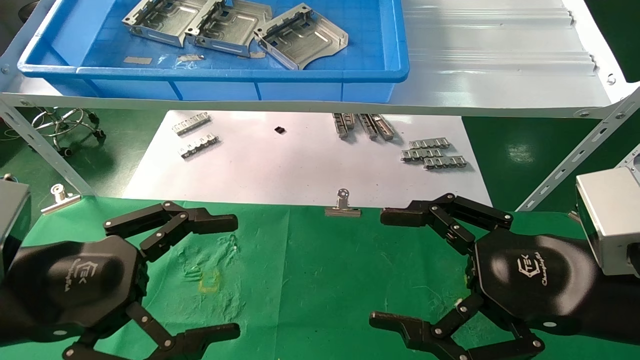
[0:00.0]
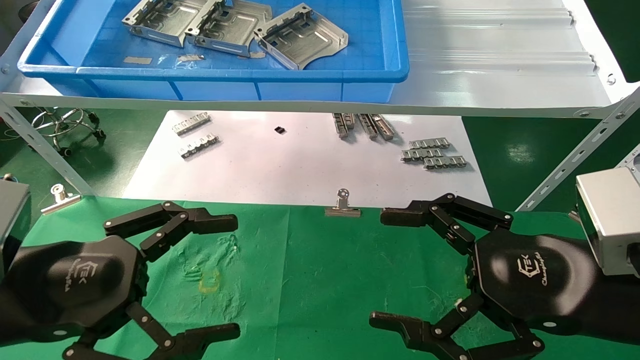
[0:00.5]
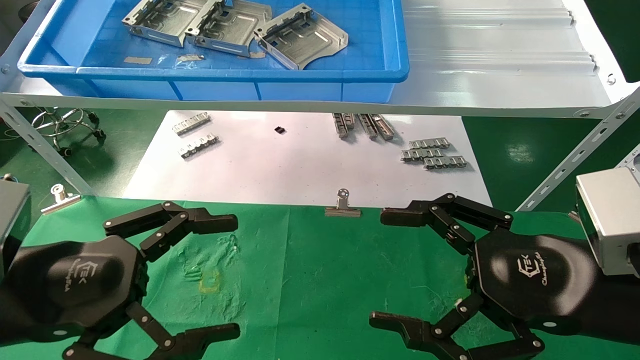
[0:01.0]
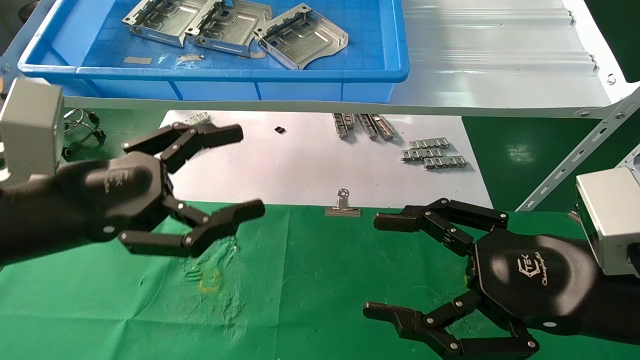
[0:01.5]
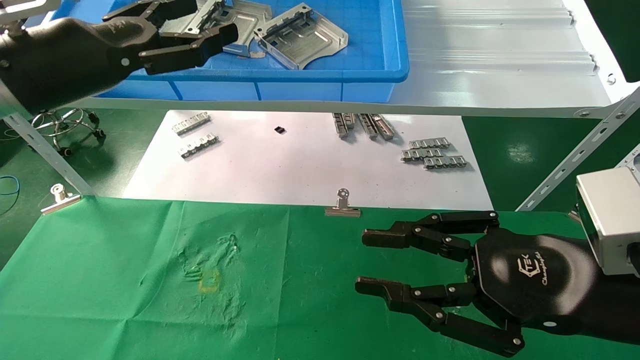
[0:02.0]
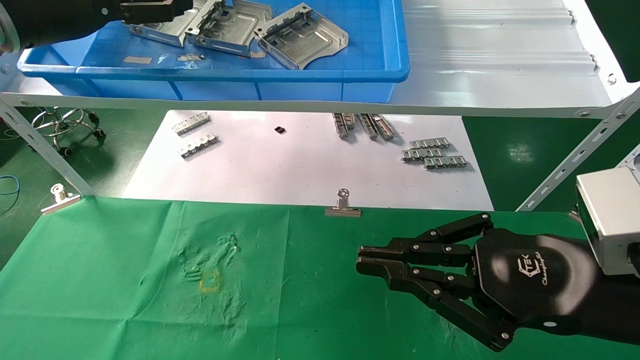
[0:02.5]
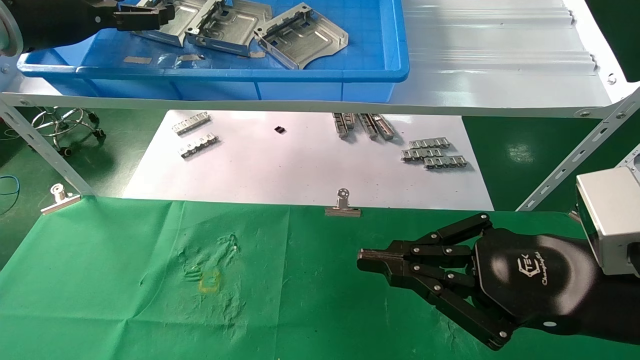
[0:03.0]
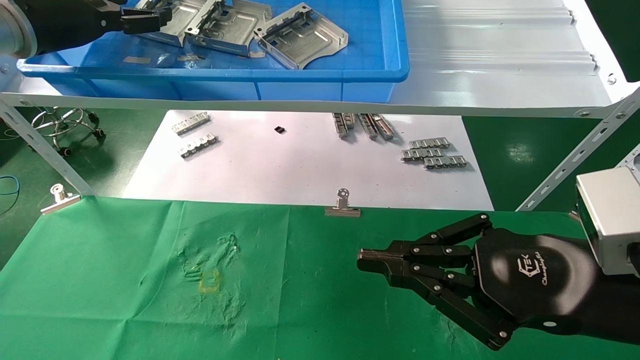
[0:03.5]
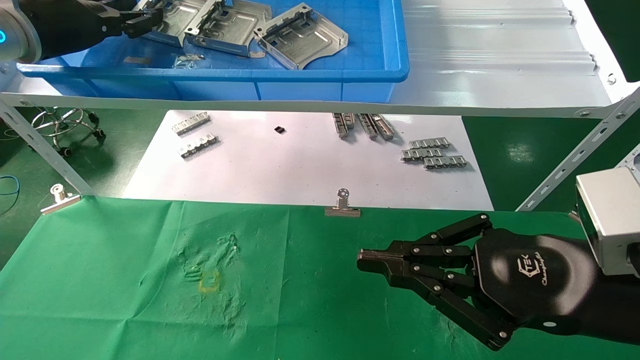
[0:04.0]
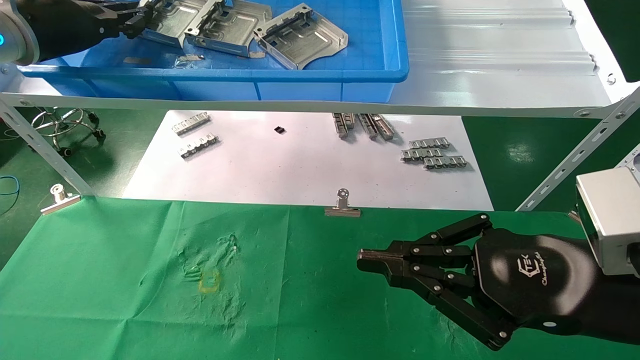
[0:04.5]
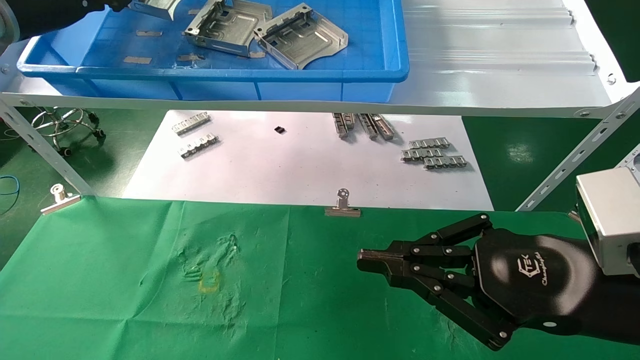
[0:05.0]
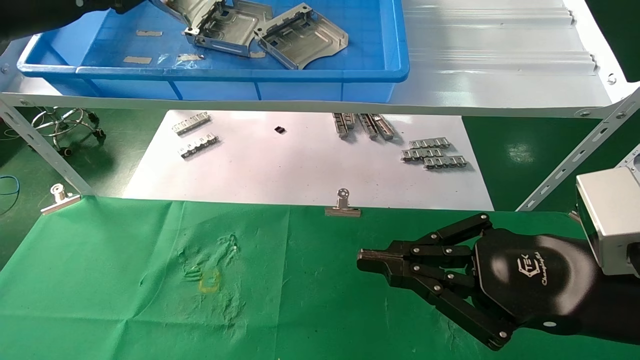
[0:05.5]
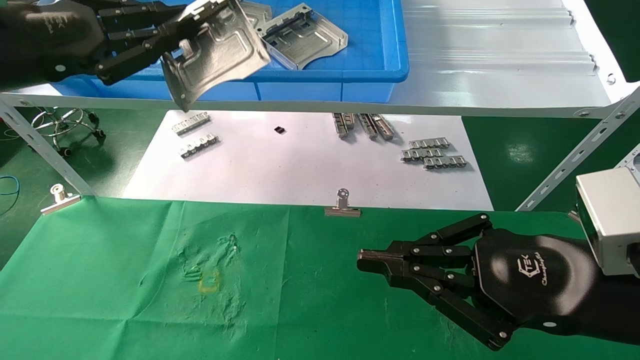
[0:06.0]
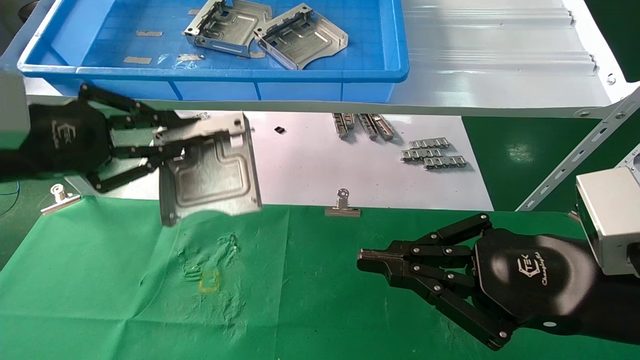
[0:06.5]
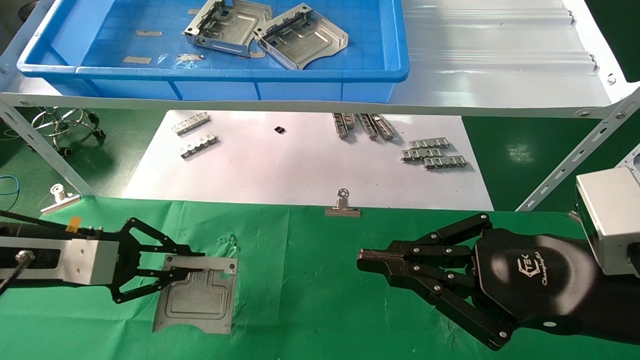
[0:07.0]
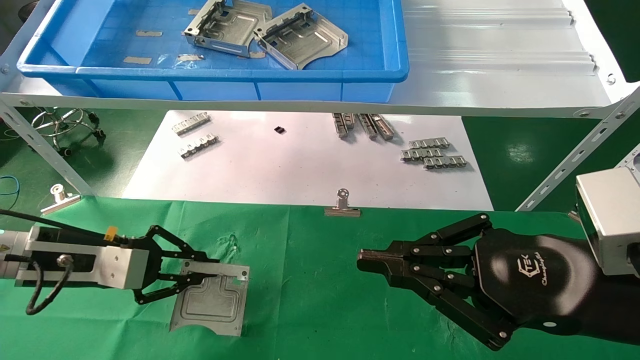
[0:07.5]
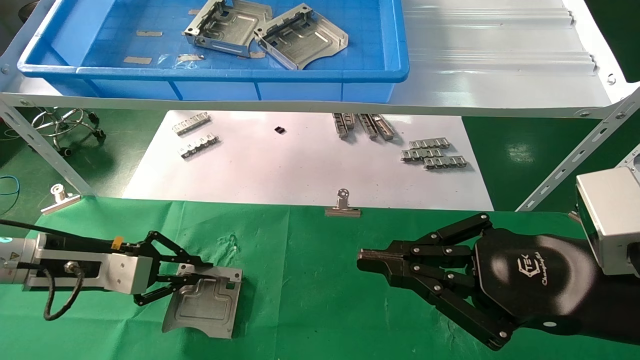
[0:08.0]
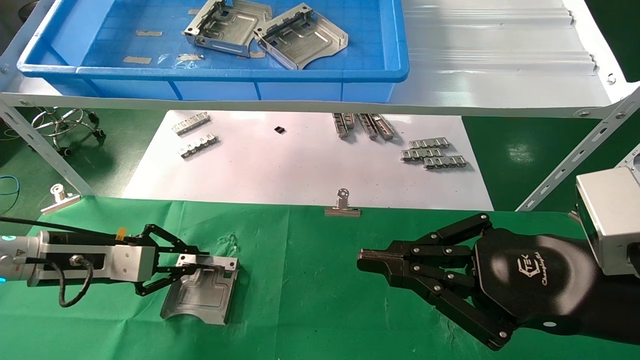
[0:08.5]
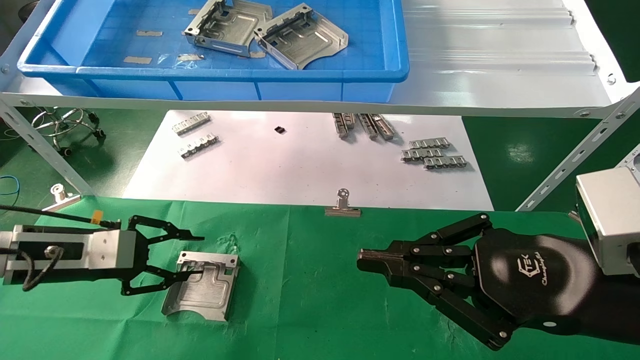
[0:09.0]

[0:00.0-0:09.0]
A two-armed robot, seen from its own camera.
Task of the whole recording: use the mechanical arm to pick up the parts and place them on the table.
Step, 0:01.5 to 0:04.0: Pick up the hard drive bracket from the feeding area.
Step, 0:04.5 to 0:08.5: Place the hard drive bracket into the box.
0:00.0 to 0:02.0: The right gripper closes; the left gripper is displaced upward and forward by about 20 cm.
0:02.0 to 0:04.5: The right gripper closes its fingers, while the left gripper is displaced forward, to the left and upward by roughly 15 cm, and closes.
0:04.5 to 0:07.0: The left gripper shifts roughly 25 cm downward and backward.

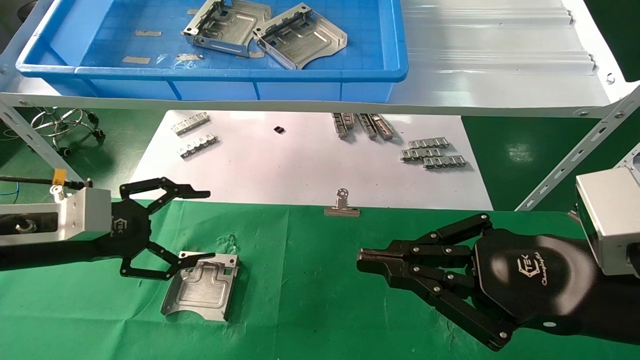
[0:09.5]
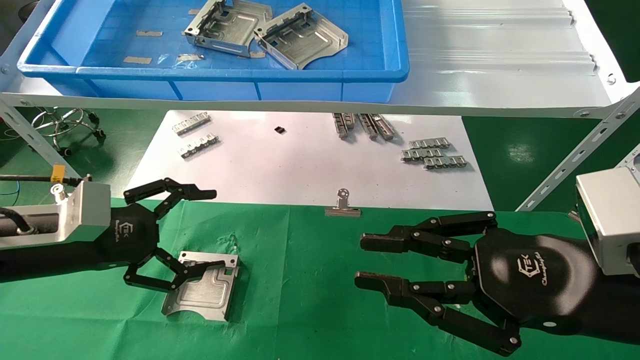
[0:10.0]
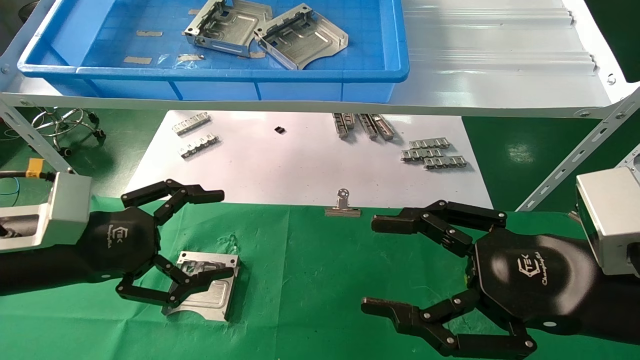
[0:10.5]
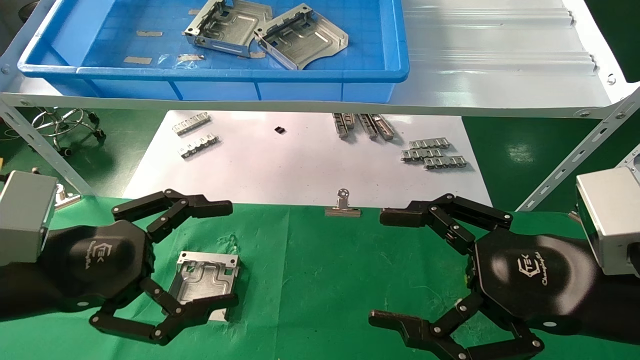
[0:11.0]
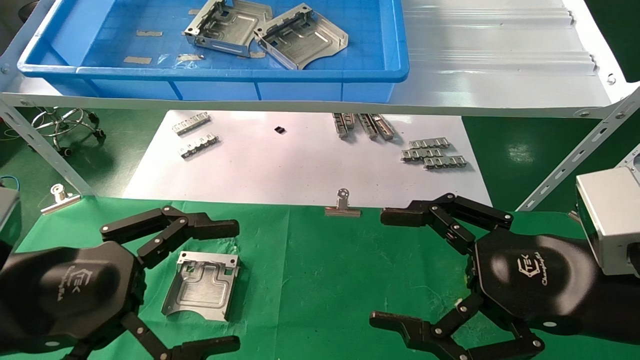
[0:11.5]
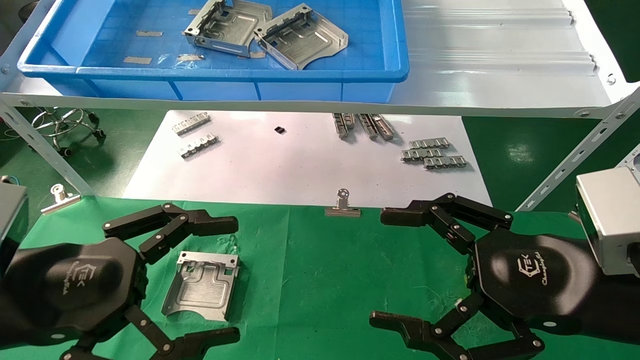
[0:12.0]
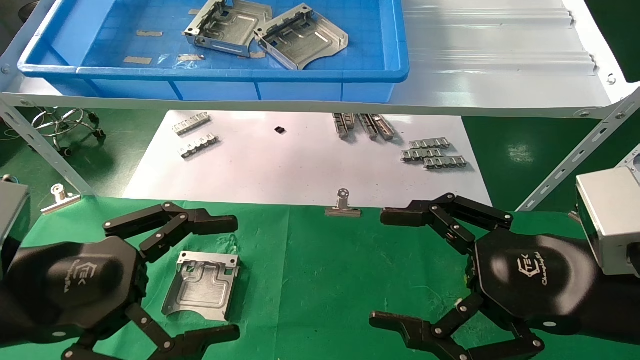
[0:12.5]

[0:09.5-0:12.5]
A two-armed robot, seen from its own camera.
Task of the whole recording: use the mechanical arm to pick up the parts and place them on the table.
0:09.5 to 0:11.0: The left gripper goes approximately 10 cm backward and to the right, while the right gripper opens.
0:11.0 to 0:12.5: There are only small adjustments of the grippers.

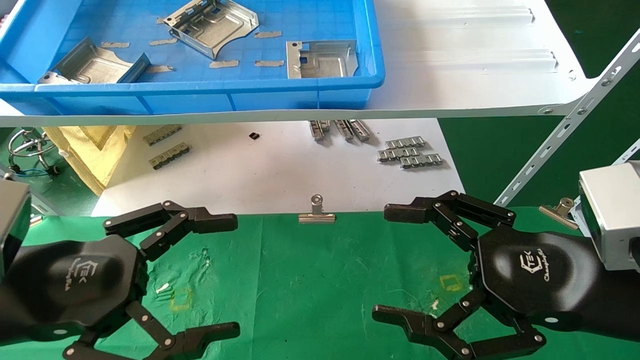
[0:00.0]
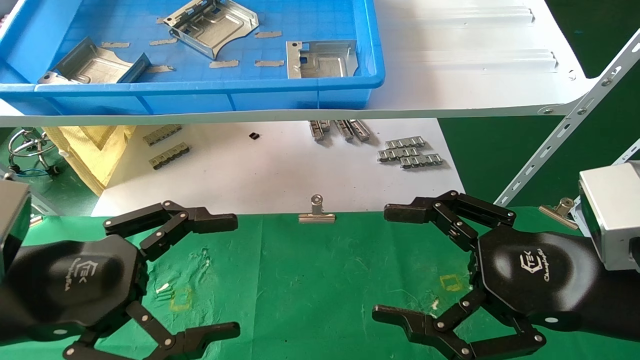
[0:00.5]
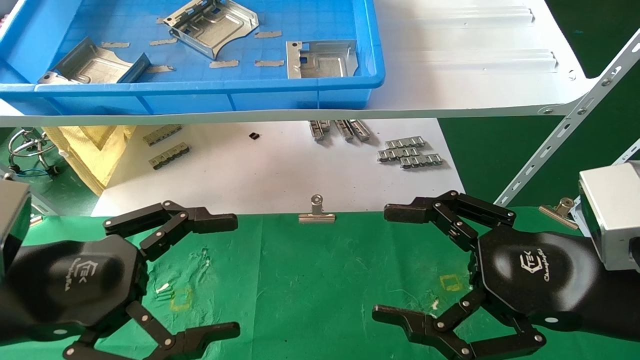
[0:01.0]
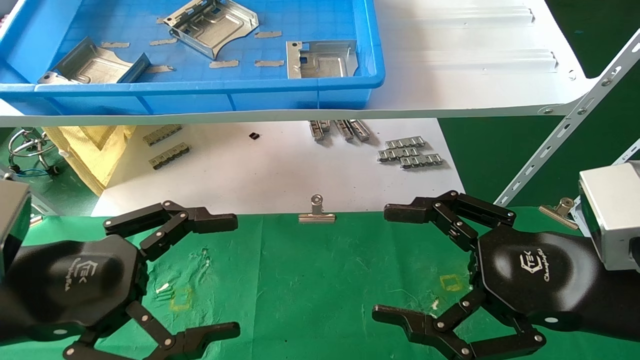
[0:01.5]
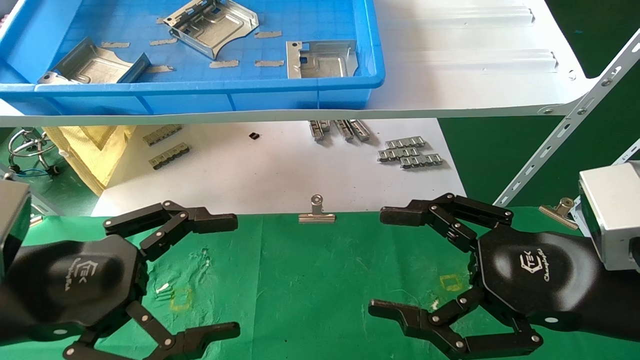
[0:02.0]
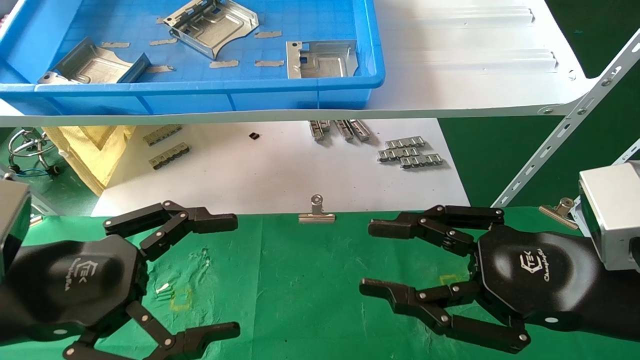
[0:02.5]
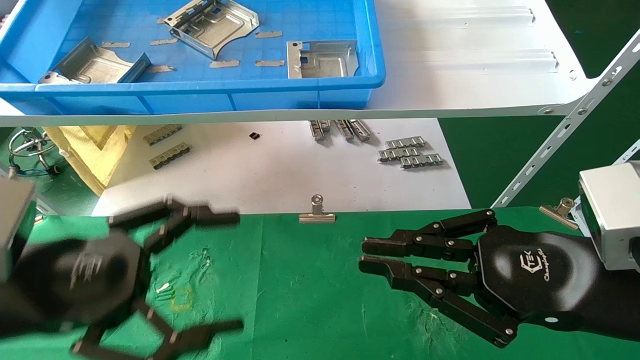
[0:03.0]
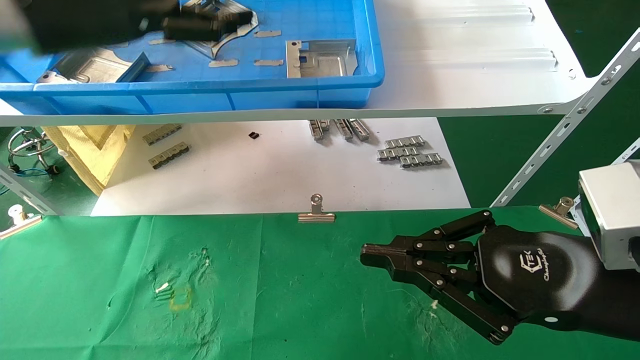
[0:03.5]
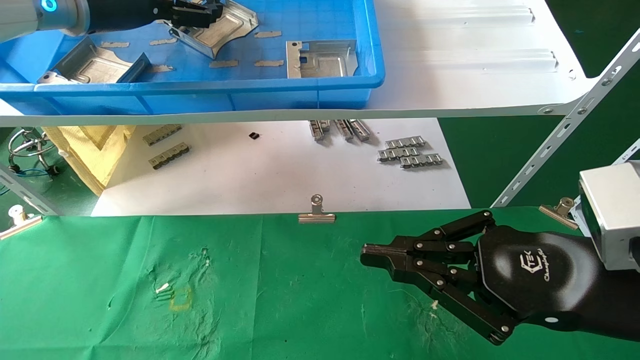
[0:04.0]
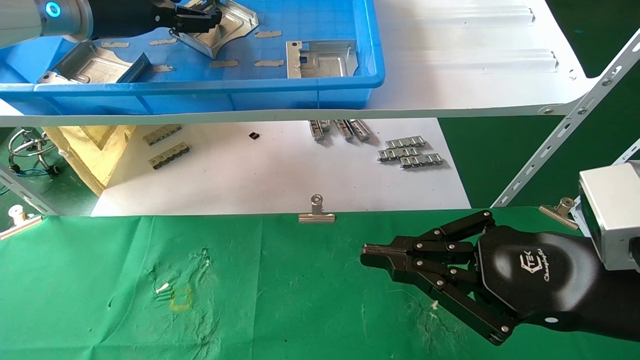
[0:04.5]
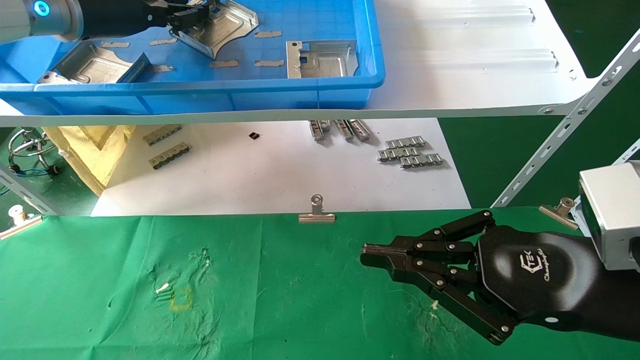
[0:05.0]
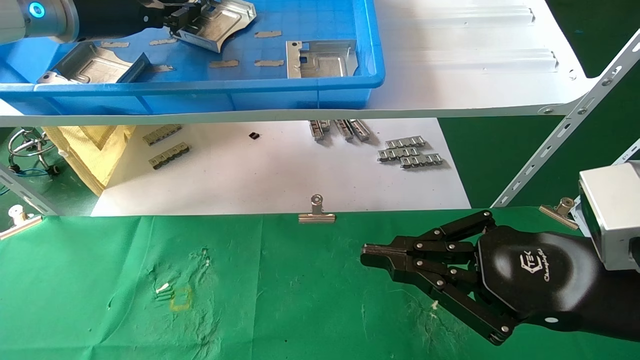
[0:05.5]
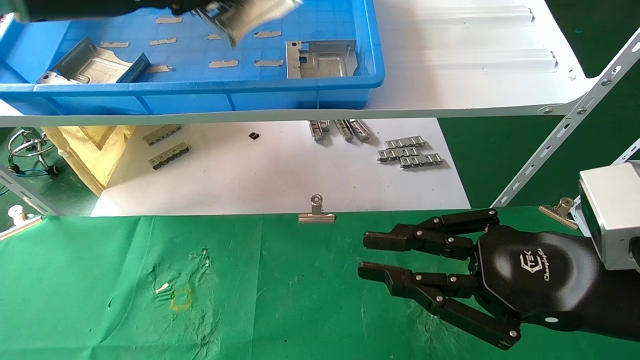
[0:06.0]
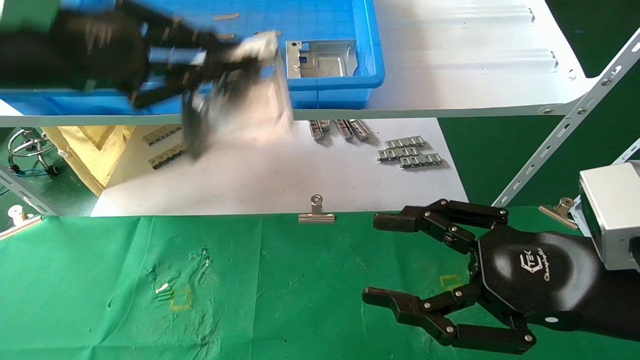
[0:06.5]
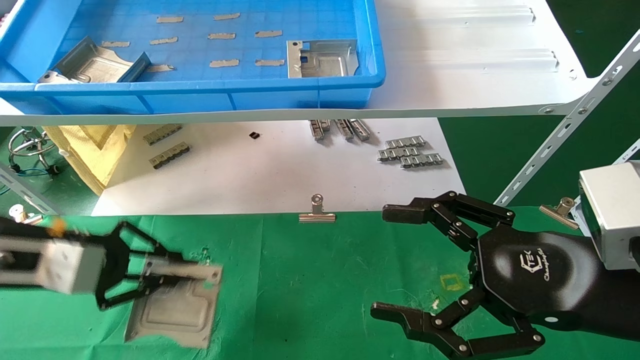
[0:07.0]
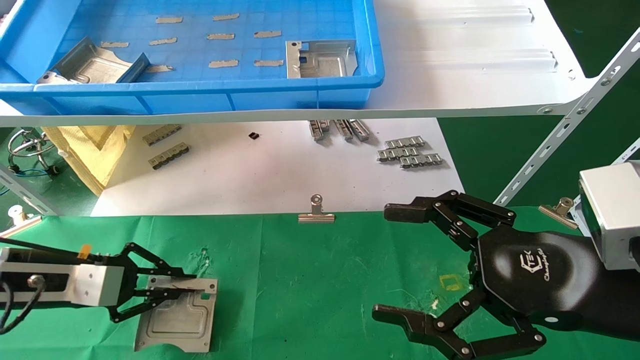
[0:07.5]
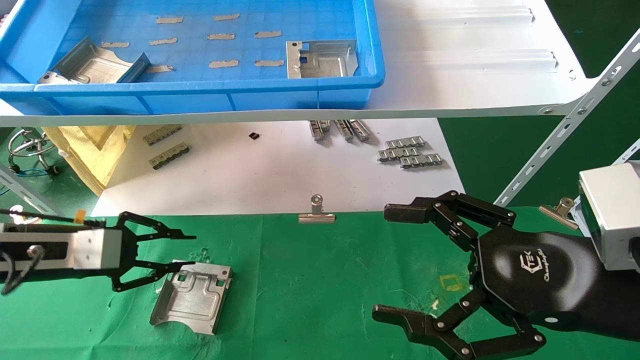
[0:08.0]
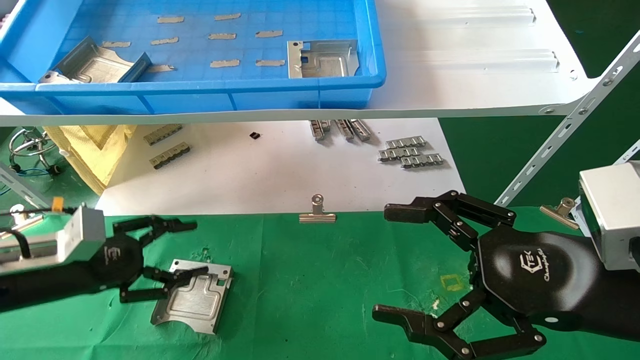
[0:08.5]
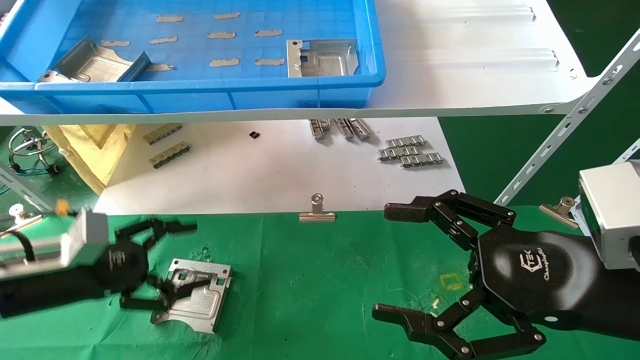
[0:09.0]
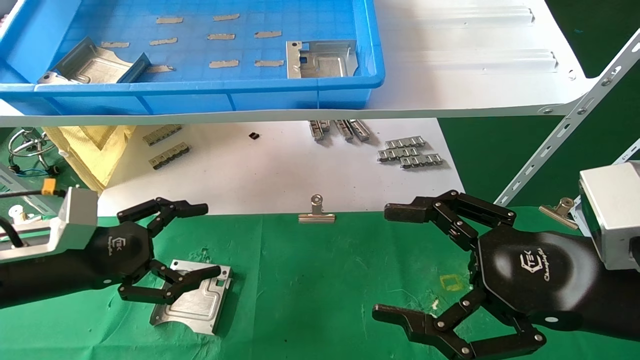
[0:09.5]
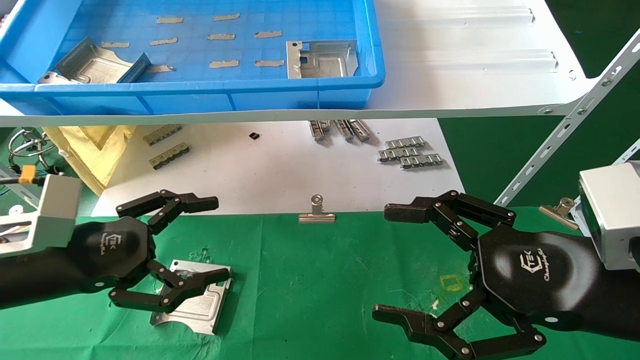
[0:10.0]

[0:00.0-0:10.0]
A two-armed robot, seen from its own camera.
Task of the whole recording: use the mechanical arm to pick up the parts and place them on the table.
Step, 0:03.5 to 0:05.0: Pick up the hard drive bracket from the feeding area.
Step, 0:05.5 to 0:08.0: Place the hard drive bracket into the box.
0:00.0 to 0:02.0: Both grippers stay put.
0:02.0 to 0:04.0: The left gripper shifts approximately 35 cm upward and forward. The right gripper closes.
0:04.0 to 0:06.0: The left gripper moves backward, approximately 5 cm, and closes.
0:06.0 to 0:08.0: The right gripper opens its fingers. Meanwhile the left gripper travels downward by about 30 cm.
0:08.0 to 0:10.0: The left gripper goes about 10 cm backward and to the right, and opens.
